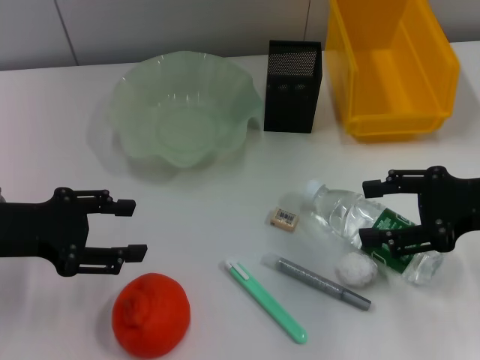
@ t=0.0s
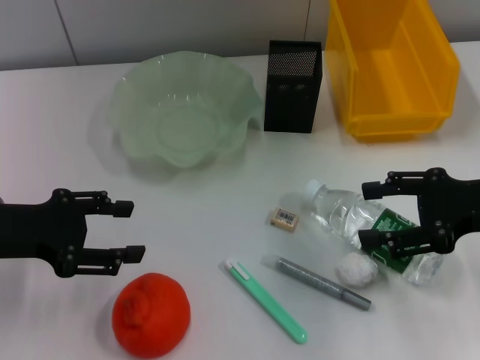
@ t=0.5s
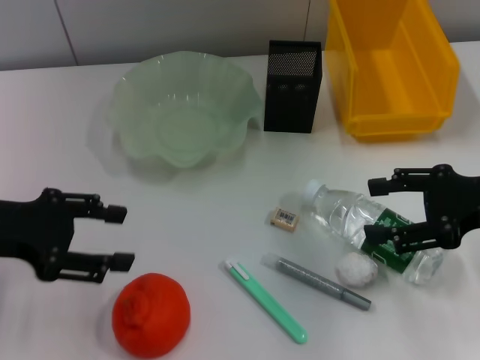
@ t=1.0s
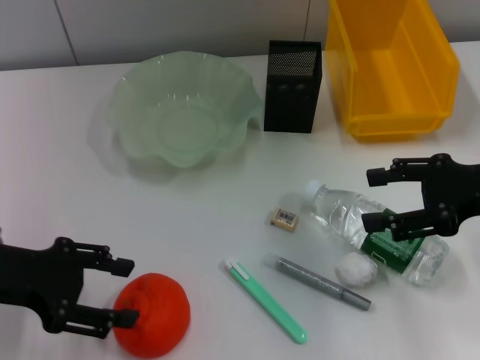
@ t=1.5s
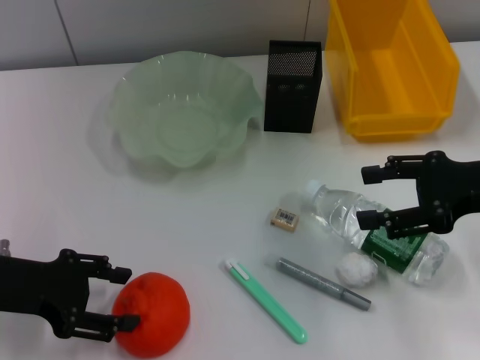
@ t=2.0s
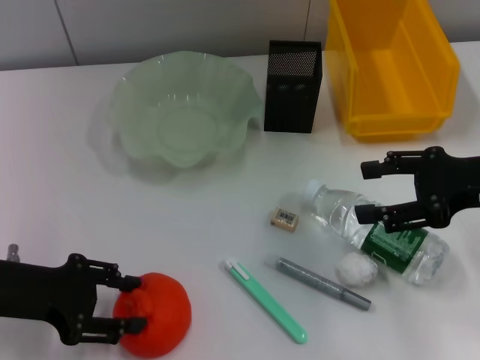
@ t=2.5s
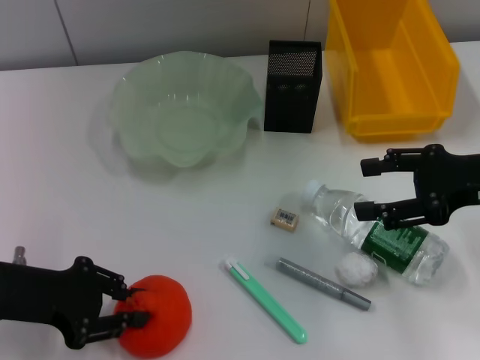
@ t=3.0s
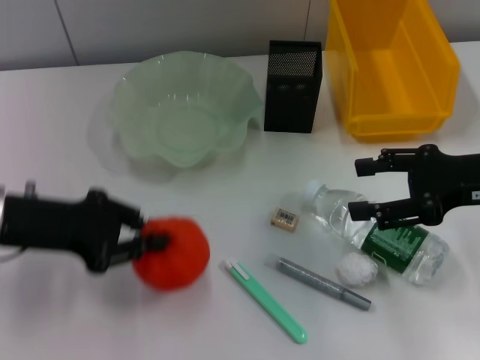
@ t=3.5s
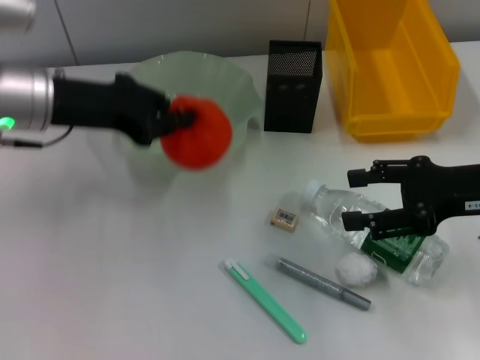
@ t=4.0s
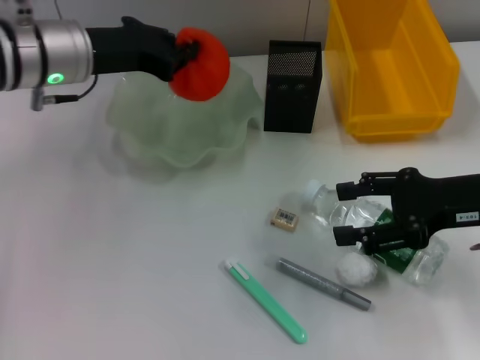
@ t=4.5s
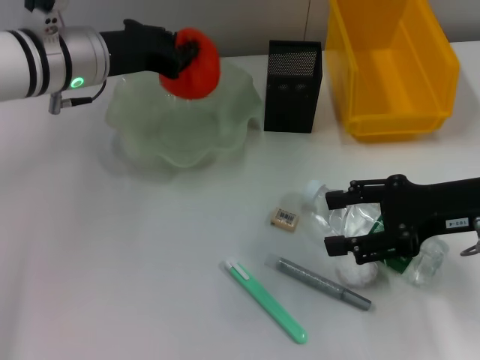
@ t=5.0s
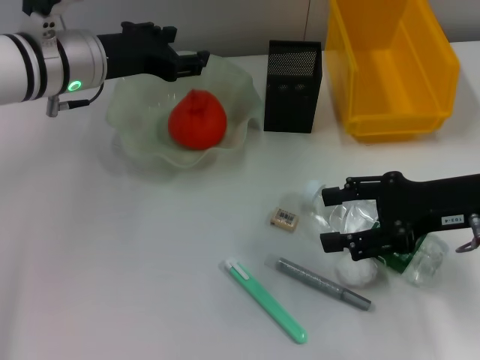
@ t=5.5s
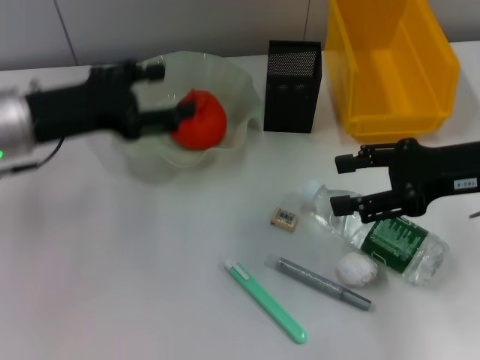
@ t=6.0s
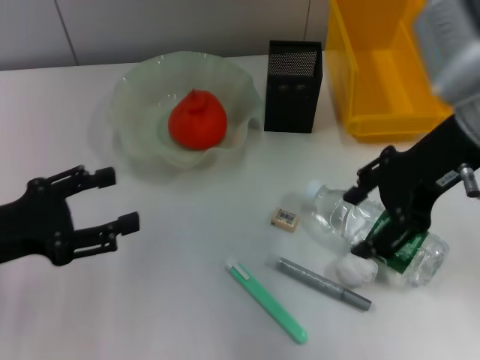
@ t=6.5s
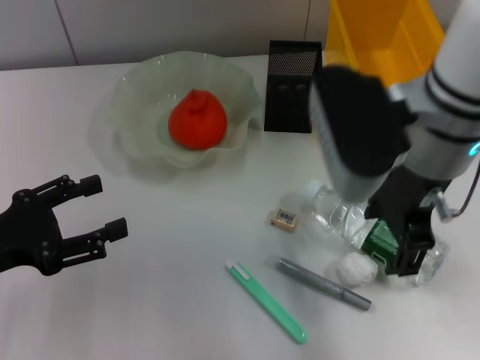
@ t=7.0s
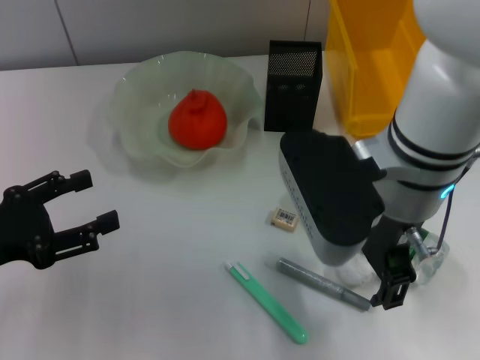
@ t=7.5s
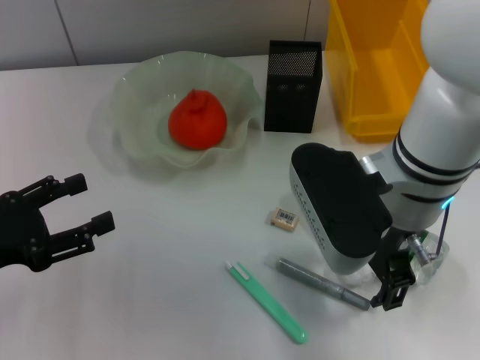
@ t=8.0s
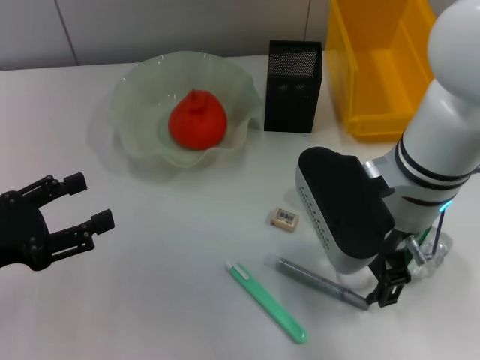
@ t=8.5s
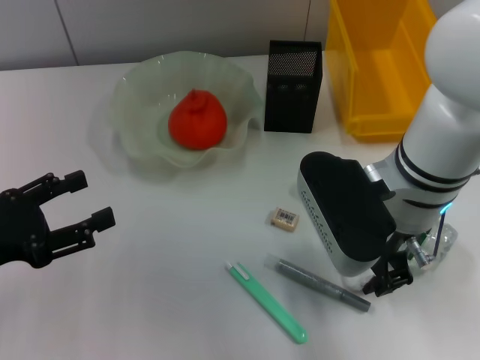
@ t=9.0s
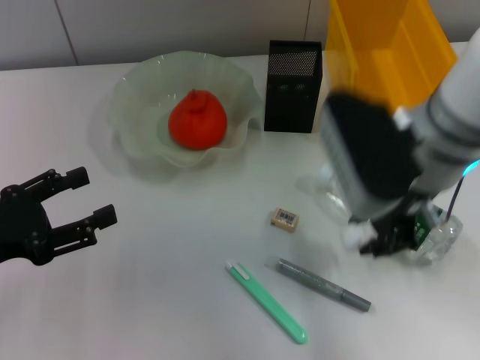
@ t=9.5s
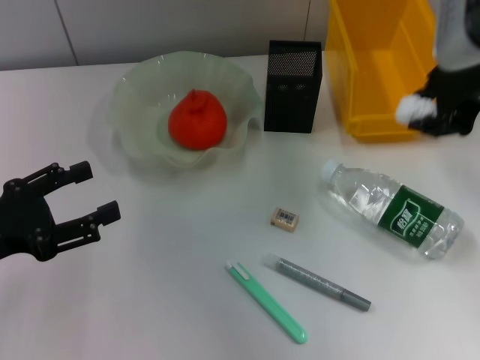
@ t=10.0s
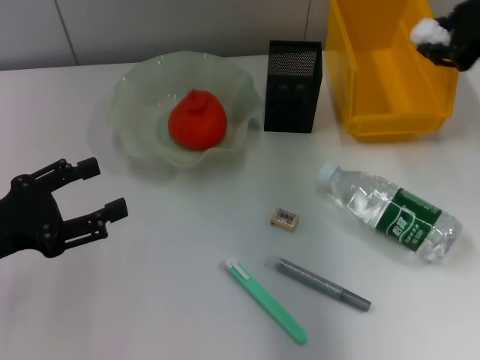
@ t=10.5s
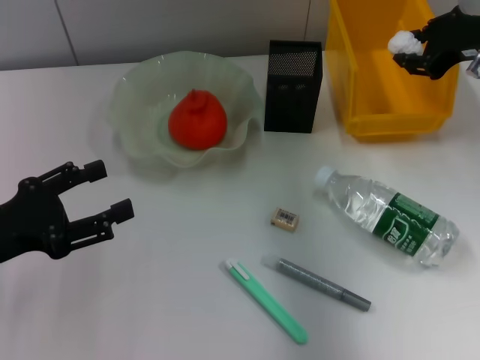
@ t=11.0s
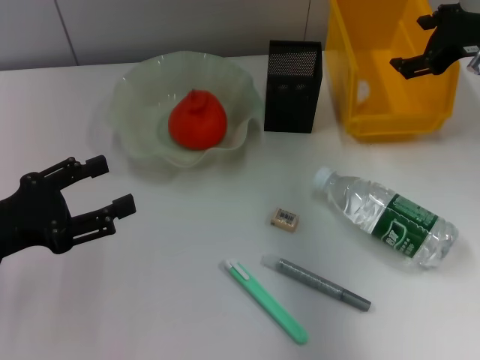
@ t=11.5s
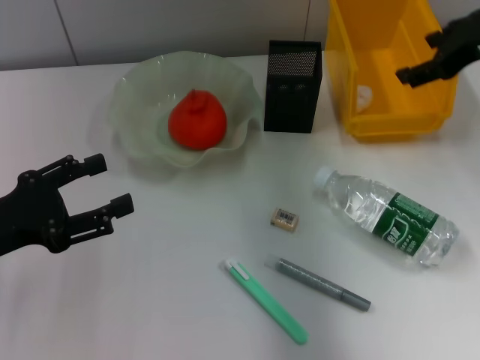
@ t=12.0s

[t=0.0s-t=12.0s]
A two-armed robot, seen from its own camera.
Step, t=0.0s to t=3.0s: Grab the orange with the left hand.
Step, t=3.5s to t=5.0s: Place the orange into the fruit bowl with the left hand.
Step, t=5.5s to t=8.5s: Grab the paper ball with the right hand.
Step, t=9.0s to t=11.0s: Place the paper ball into the trash can with the right hand.
t=0.0s to t=2.0s: The grippers make only small movements.
t=2.0s to t=4.0s: The left gripper is displaced forward, upward and to the right by roughly 15 cm, and closes.
t=4.0s to t=6.0s: The left gripper opens up.
t=6.0s to t=8.0s: The left gripper moves backward, to the left and downward, approximately 15 cm; the right gripper travels to the left by about 15 cm.
t=8.0s to t=10.0s: The right gripper goes approximately 15 cm to the right and upward, and closes up.
t=10.0s to t=12.0s: The right gripper heads to the right, covering roughly 5 cm, and opens its fingers.

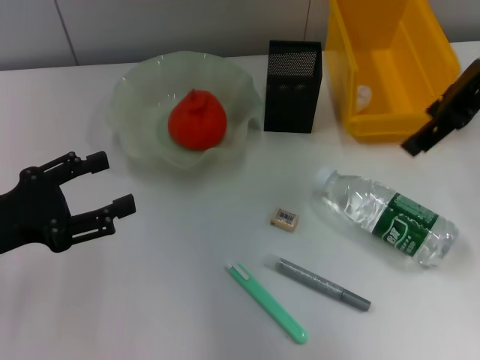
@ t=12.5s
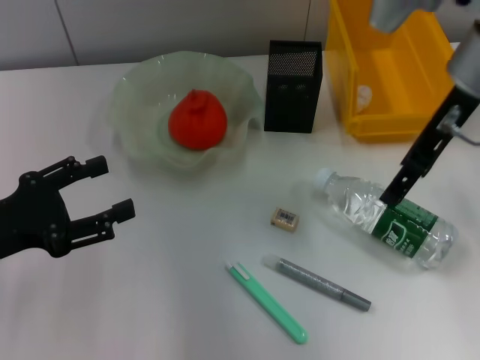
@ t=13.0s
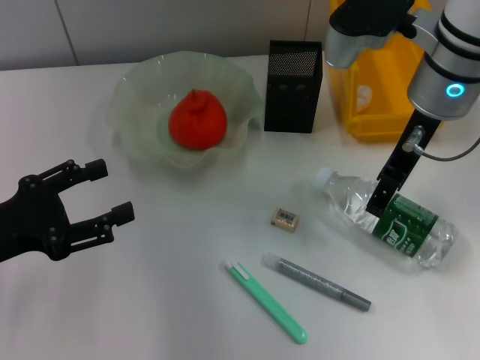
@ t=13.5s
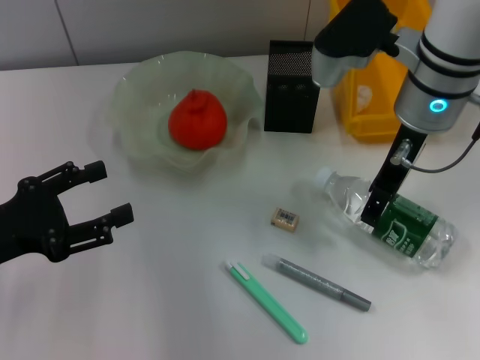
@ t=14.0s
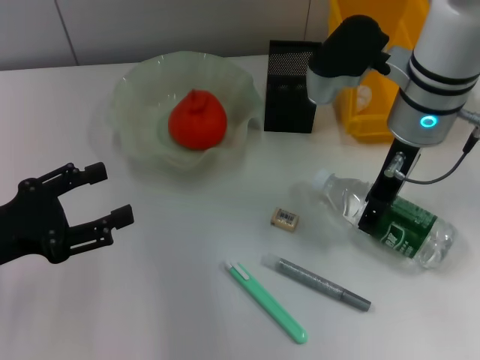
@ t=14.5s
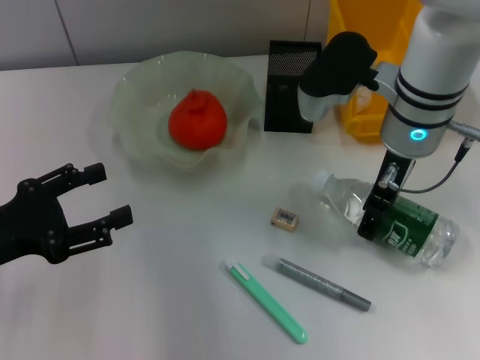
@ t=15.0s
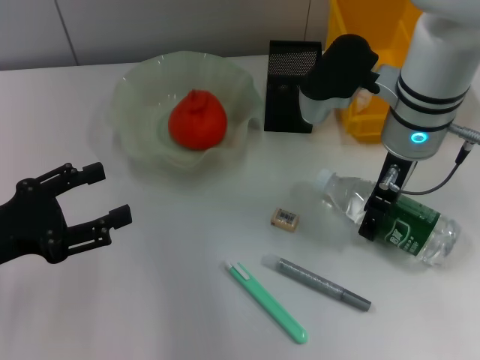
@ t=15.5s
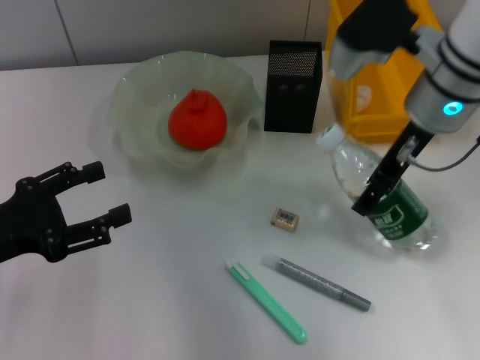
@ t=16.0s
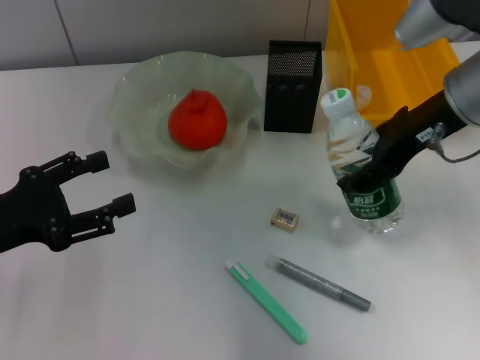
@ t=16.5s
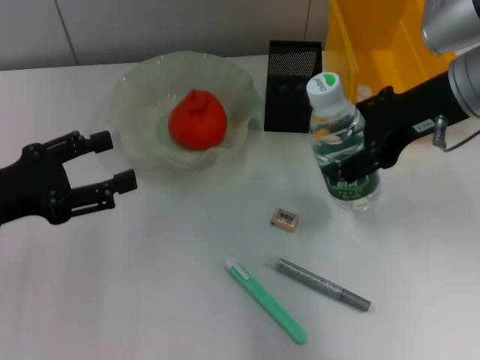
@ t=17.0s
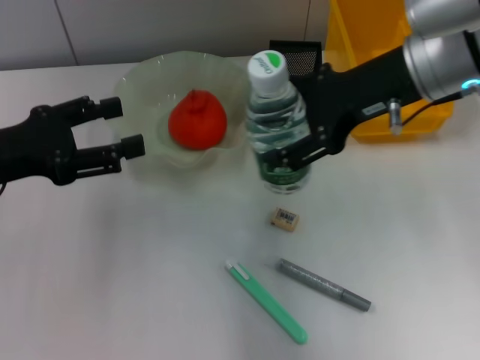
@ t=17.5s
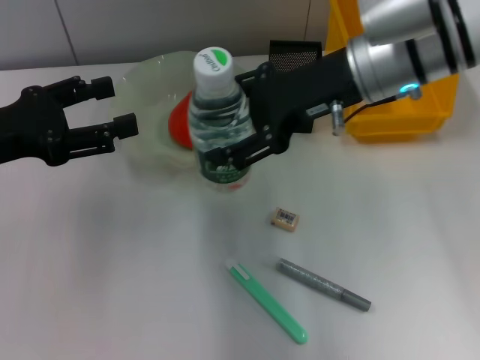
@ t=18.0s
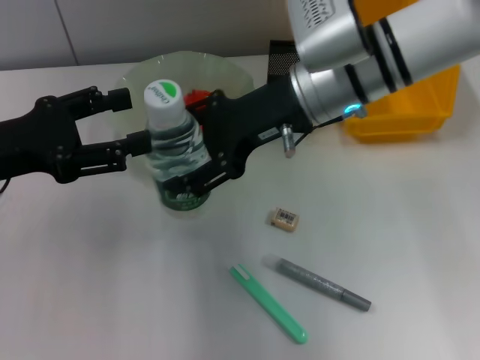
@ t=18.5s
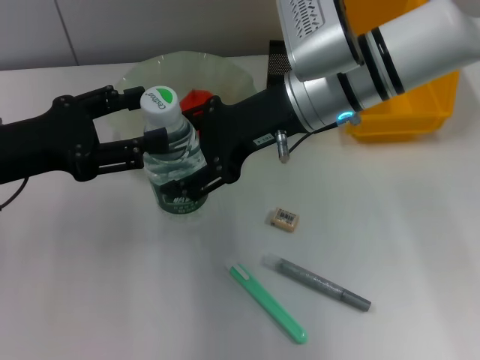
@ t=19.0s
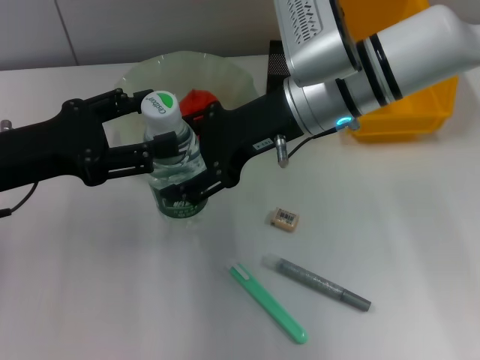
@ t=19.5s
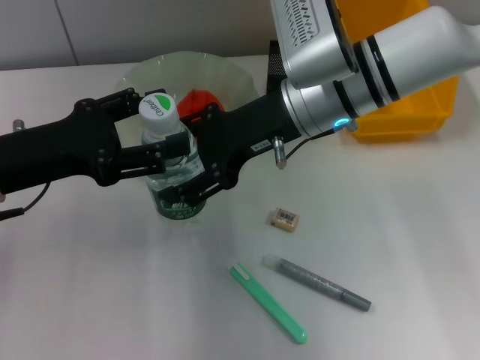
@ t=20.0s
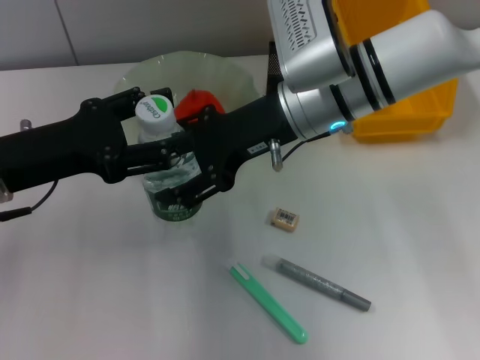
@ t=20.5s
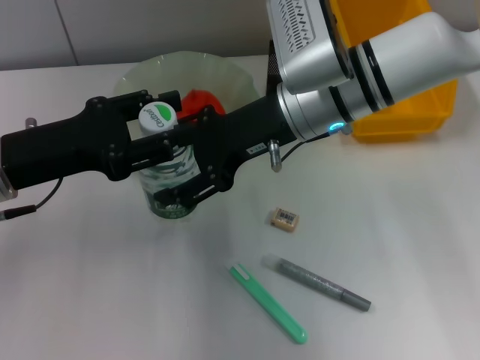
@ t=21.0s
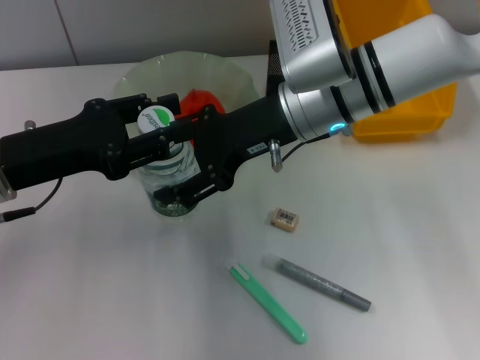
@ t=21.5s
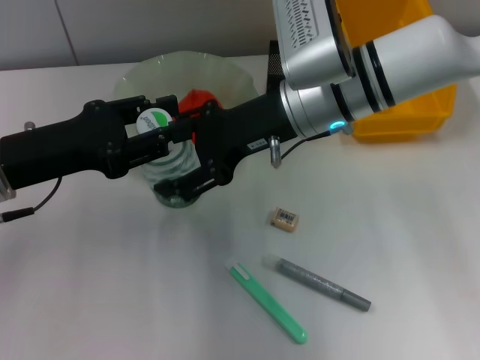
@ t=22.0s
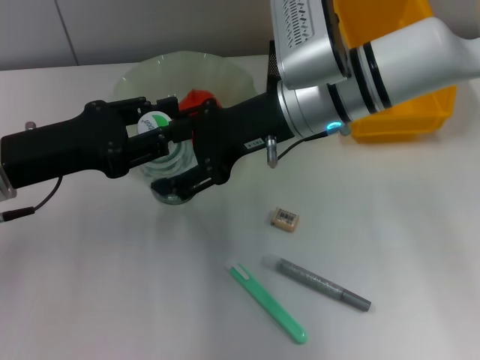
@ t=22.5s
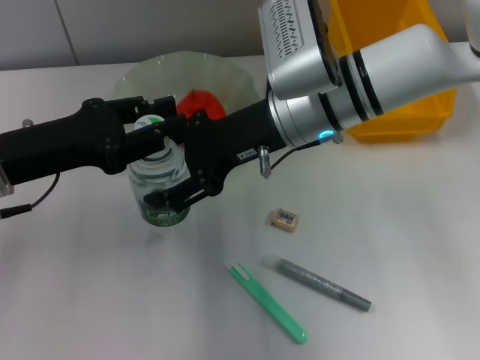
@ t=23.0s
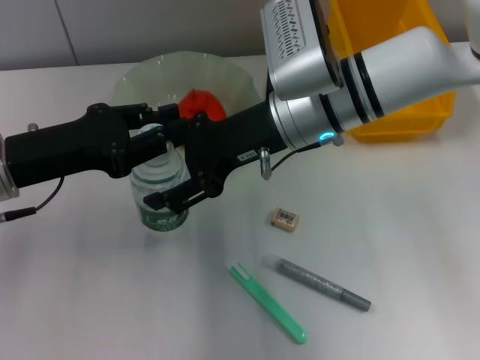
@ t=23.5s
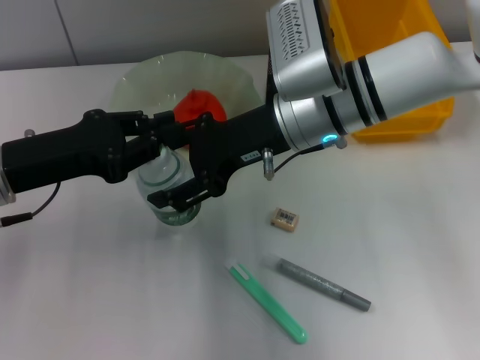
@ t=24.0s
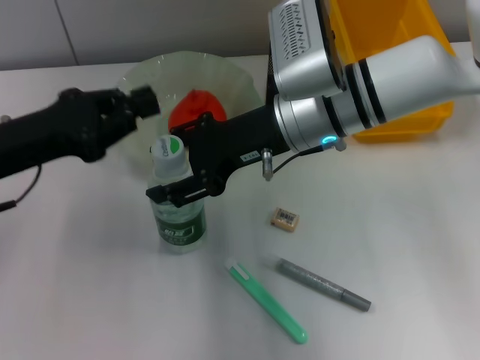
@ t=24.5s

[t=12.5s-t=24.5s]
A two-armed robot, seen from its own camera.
Step, t=12.5s to t=15.0s: Grab the water bottle with the right hand.
t=12.5s to t=14.5s: The right gripper is displaced downward and to the left by some 15 cm.
t=14.5s to t=16.5s: The right gripper is displaced to the right by about 5 cm.
t=16.5s to t=18.5s: The left gripper shifts some 5 cm upward. The right gripper goes roughly 10 cm to the left.
t=18.5s to t=20.5s: The grippers move only a little.
t=20.5s to t=22.5s: The left gripper closes its fingers.
t=22.5s to t=24.5s: The left gripper closes up.

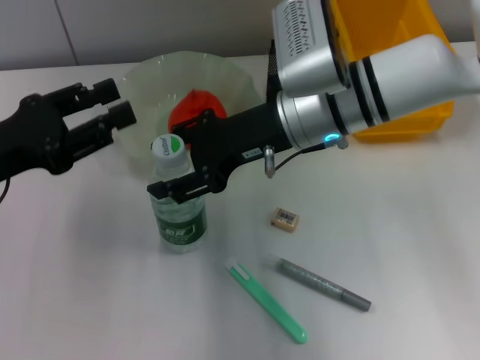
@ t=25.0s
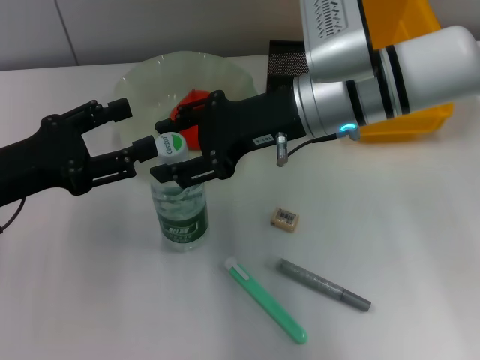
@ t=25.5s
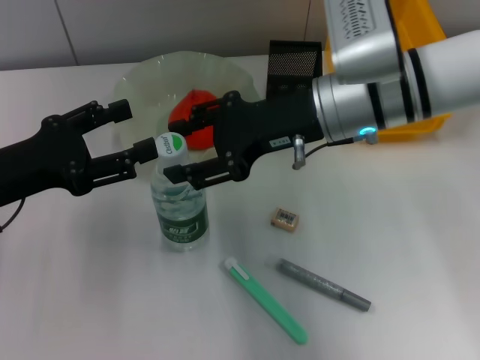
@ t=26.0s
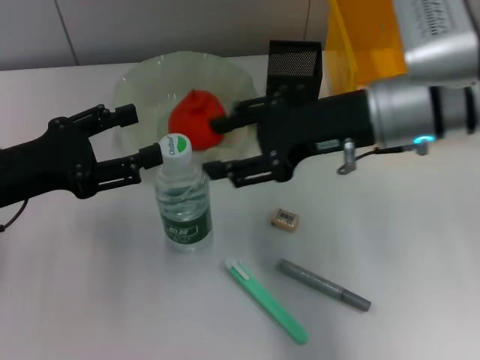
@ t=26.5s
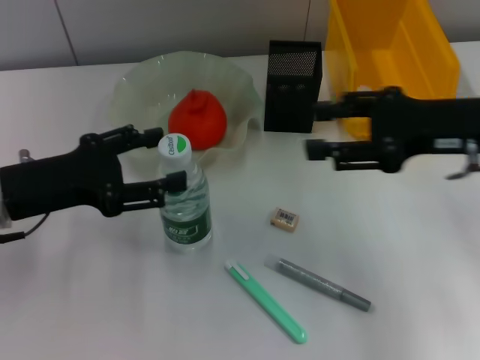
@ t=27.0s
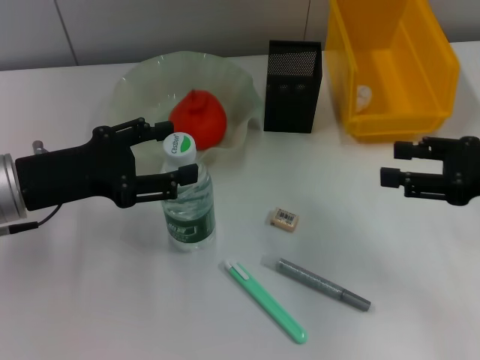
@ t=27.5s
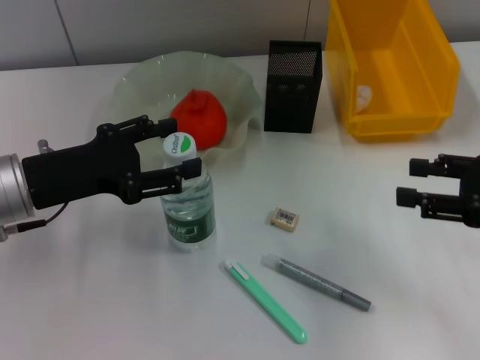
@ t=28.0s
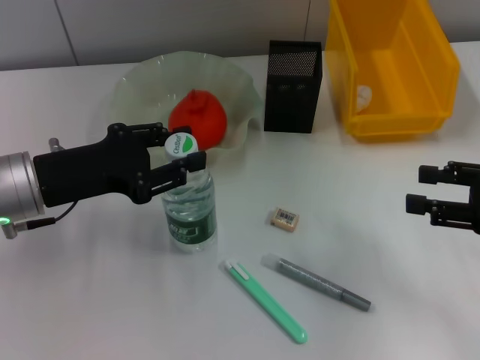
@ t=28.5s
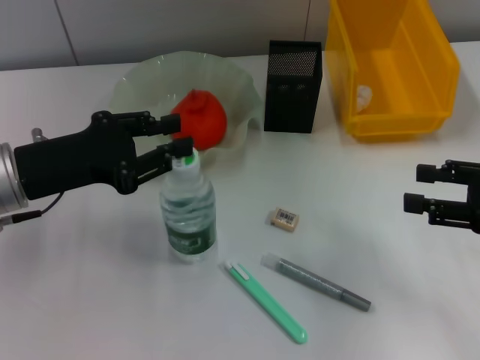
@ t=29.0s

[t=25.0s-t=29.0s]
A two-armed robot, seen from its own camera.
t=25.0s to t=27.0s: The right gripper travels to the right and backward by roughly 20 cm. The left gripper opens up.
t=27.0s to t=29.0s: The right gripper heads to the right and backward, covering about 10 cm; the left gripper closes.
